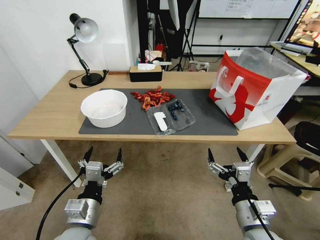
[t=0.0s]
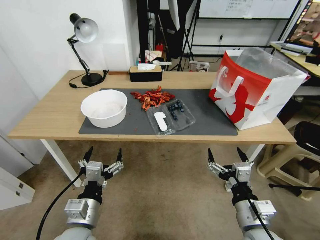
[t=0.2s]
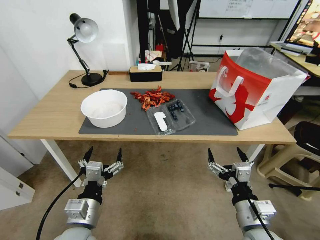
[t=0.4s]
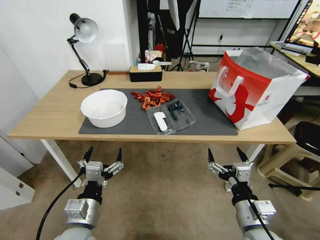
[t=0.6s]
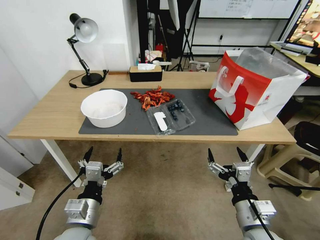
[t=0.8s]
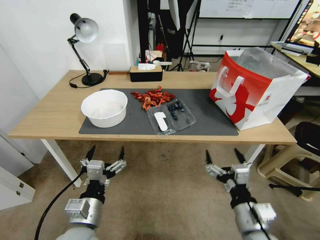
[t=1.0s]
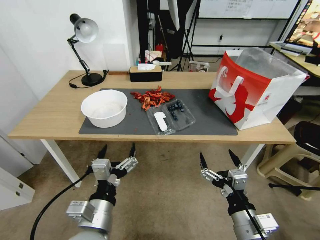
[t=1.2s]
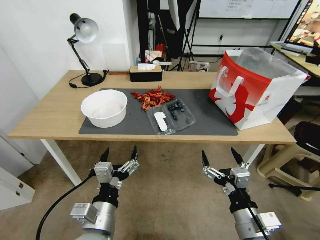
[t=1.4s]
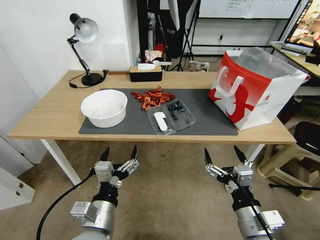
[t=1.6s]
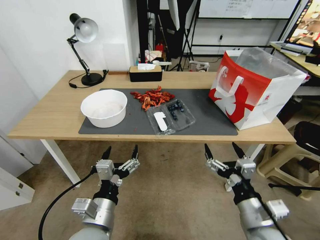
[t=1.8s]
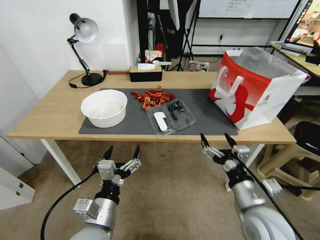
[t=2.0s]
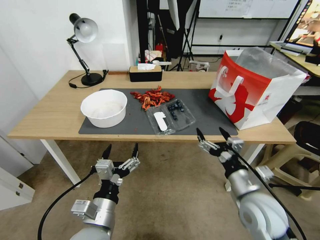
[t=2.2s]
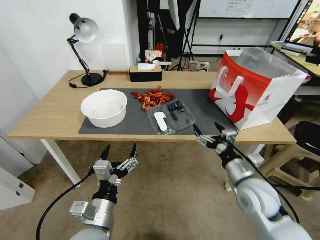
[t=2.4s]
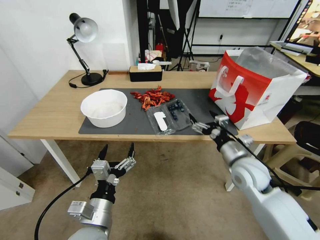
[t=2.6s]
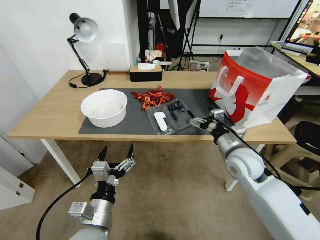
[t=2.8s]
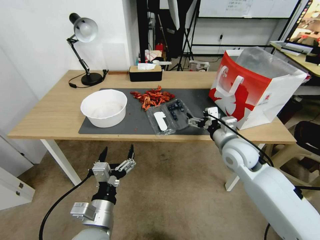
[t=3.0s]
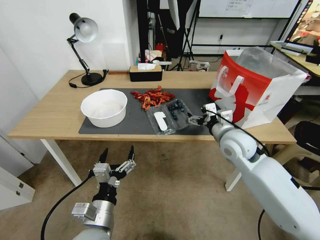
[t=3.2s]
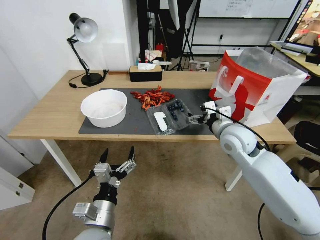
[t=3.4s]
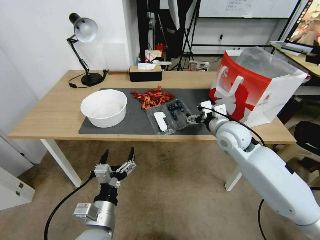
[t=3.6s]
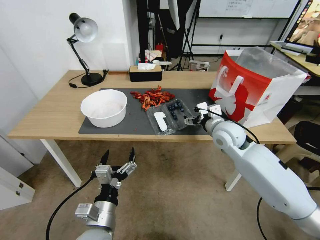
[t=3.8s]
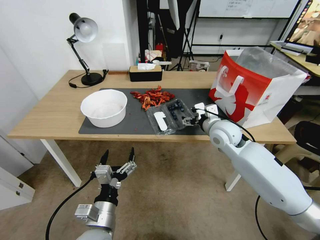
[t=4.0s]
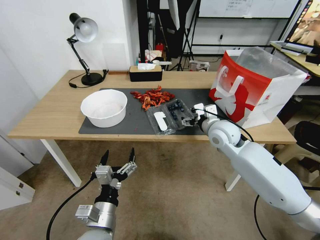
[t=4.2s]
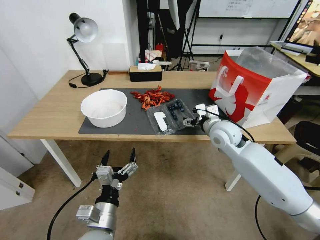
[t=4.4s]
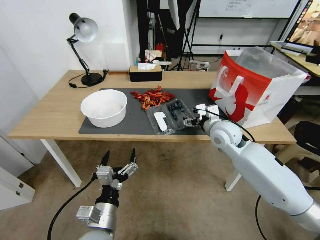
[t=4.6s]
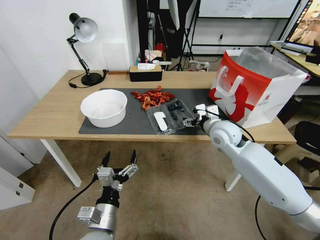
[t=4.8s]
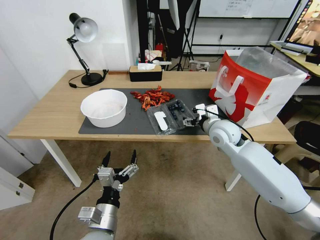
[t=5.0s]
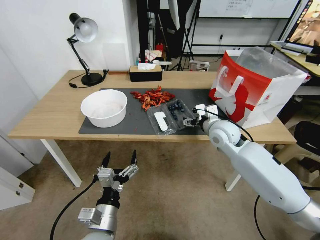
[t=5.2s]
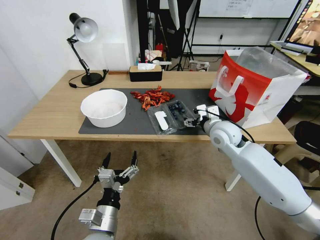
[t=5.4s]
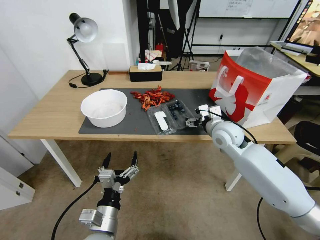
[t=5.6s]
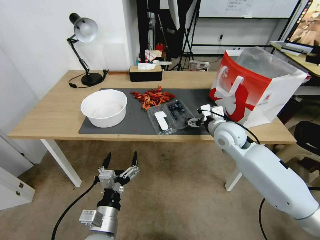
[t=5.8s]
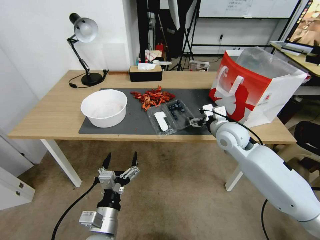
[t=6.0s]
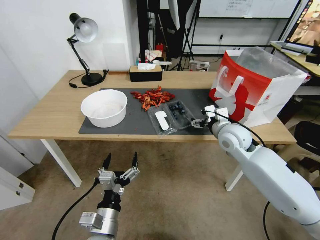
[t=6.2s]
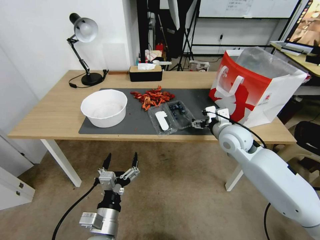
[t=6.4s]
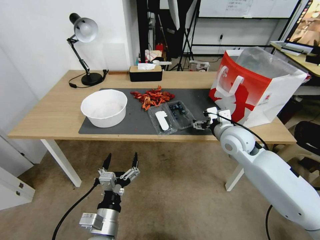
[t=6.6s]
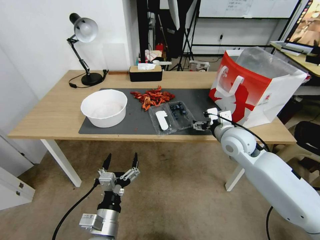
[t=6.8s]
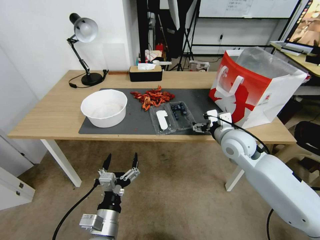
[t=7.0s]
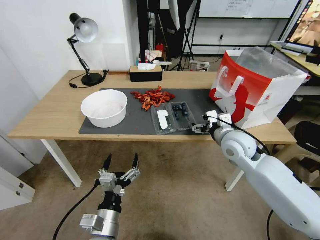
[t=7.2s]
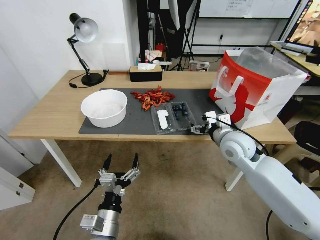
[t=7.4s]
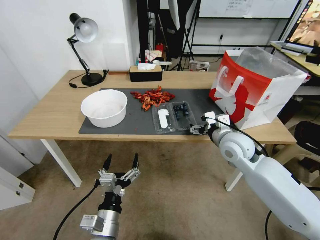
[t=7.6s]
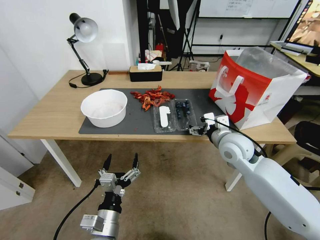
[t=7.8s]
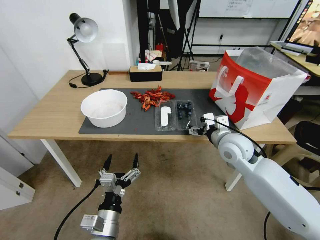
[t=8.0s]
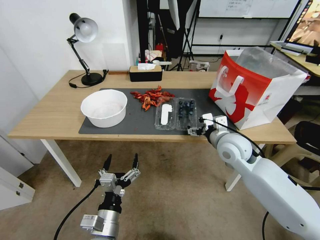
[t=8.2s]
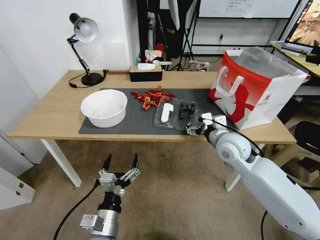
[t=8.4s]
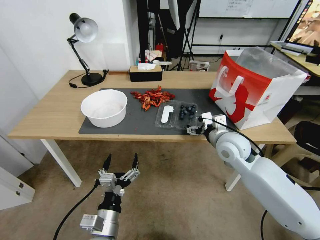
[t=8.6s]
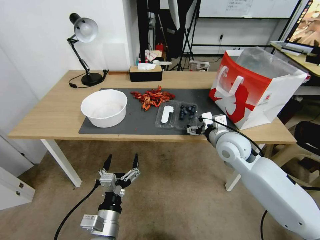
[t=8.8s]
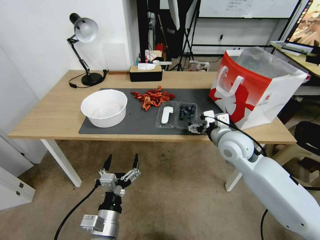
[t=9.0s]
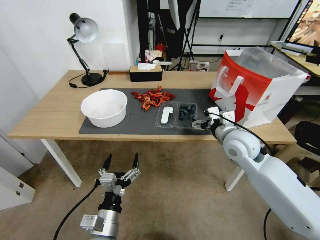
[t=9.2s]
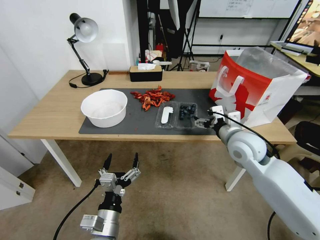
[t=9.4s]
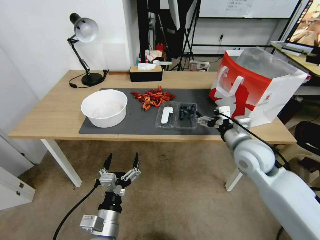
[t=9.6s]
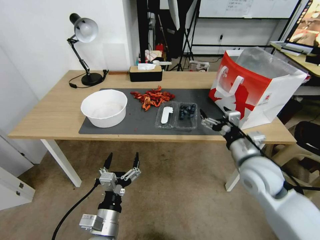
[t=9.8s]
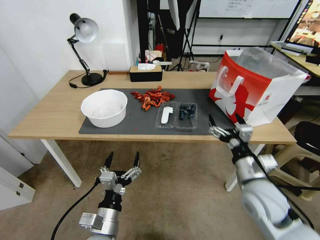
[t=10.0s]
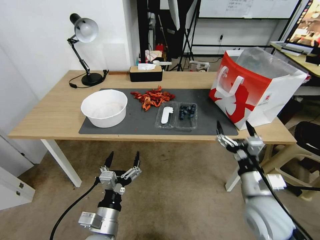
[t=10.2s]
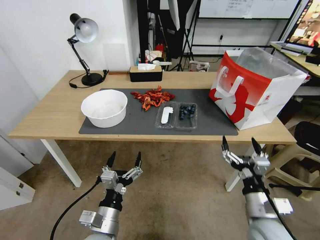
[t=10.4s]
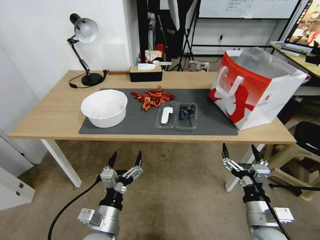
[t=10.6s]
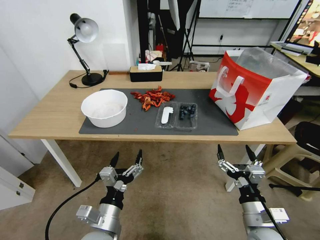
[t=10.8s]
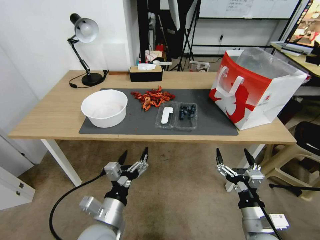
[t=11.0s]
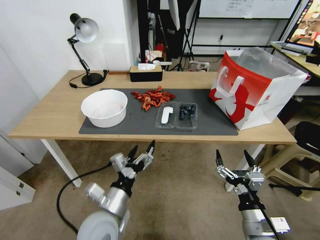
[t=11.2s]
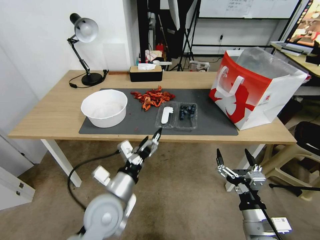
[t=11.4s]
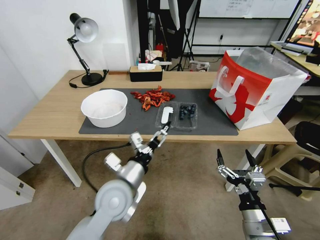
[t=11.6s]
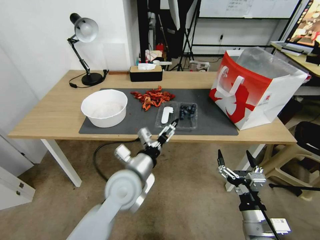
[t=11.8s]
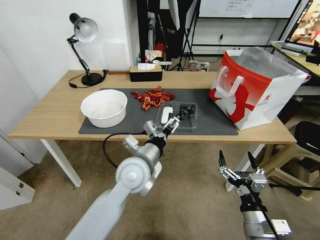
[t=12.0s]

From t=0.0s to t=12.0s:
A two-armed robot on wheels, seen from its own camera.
Task of the whole recording: Close the takeout container lid, then place the container into the takeout bag.
From t=1.6s to t=3.0s: The right gripper shifts roughly 25 cm forward.
From t=3.0s to t=4.4s: The right gripper is displaced forward by about 5 cm.
From t=4.4s to t=7.6s: The grippers make only small movements.
From t=7.6s to t=9.0s: Both grippers stay about where they are.
From t=9.0s to t=10.4s: The right gripper shifts about 25 cm backward and downward.
From t=10.4s to t=12.0s: The right gripper changes place by about 5 cm. The left gripper heads forward, upward and to the right, covering approximately 20 cm.

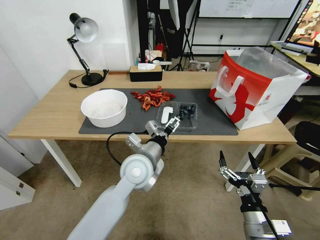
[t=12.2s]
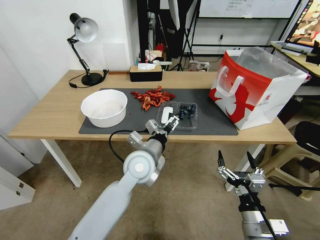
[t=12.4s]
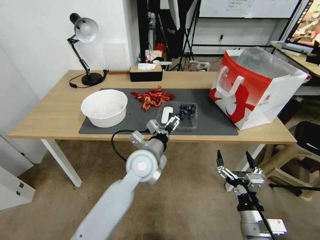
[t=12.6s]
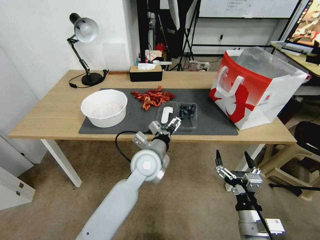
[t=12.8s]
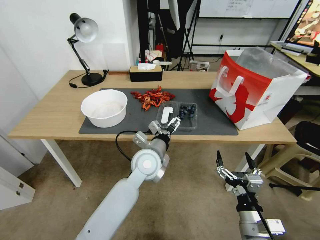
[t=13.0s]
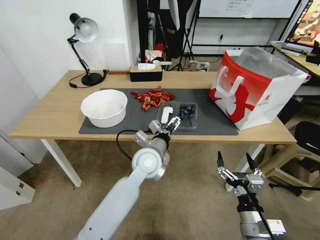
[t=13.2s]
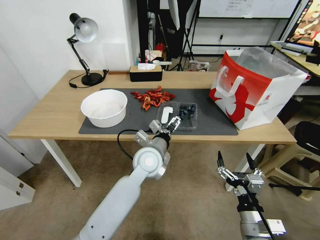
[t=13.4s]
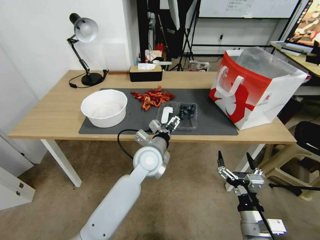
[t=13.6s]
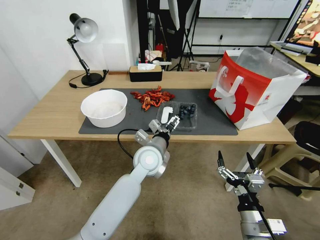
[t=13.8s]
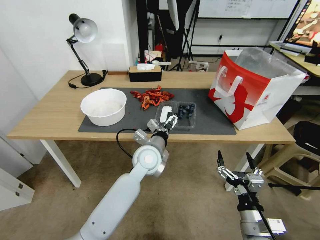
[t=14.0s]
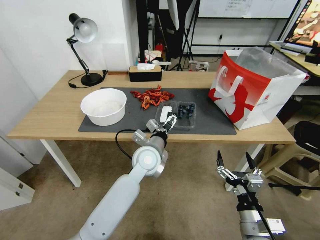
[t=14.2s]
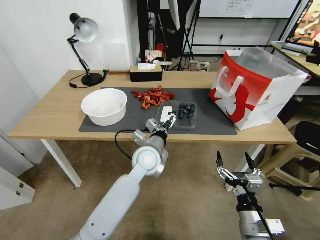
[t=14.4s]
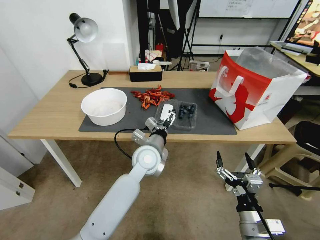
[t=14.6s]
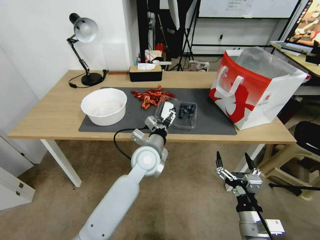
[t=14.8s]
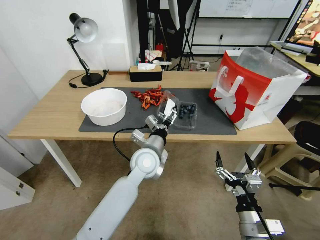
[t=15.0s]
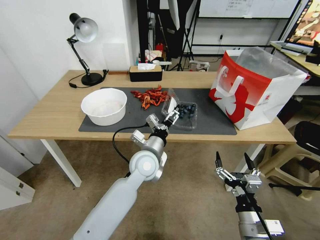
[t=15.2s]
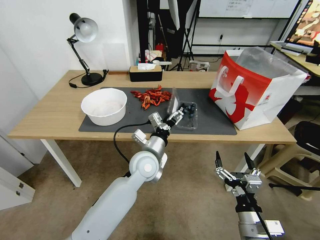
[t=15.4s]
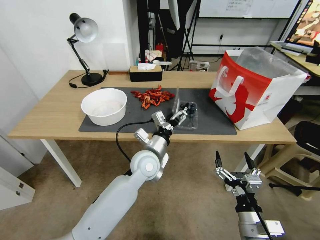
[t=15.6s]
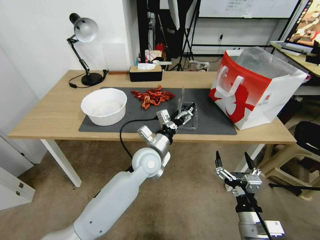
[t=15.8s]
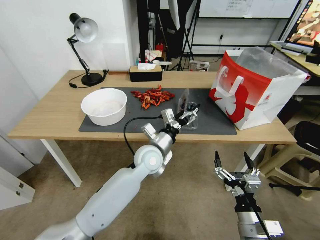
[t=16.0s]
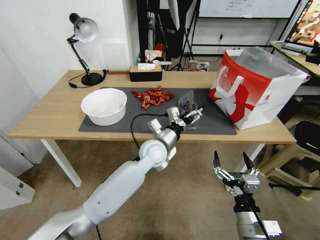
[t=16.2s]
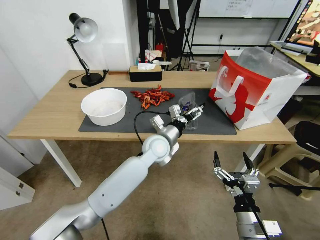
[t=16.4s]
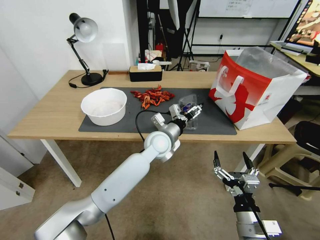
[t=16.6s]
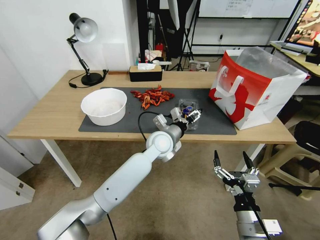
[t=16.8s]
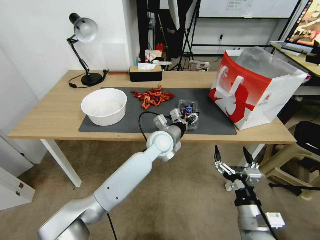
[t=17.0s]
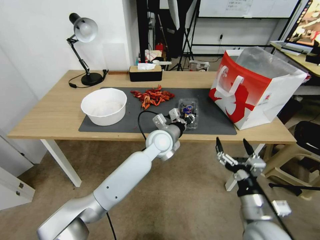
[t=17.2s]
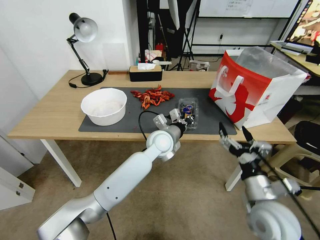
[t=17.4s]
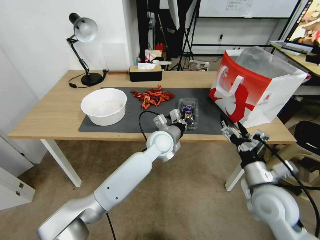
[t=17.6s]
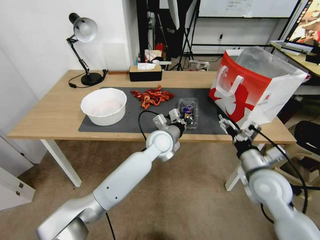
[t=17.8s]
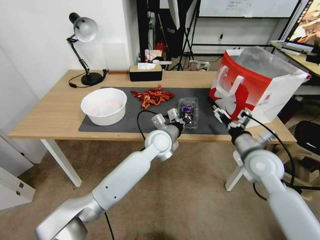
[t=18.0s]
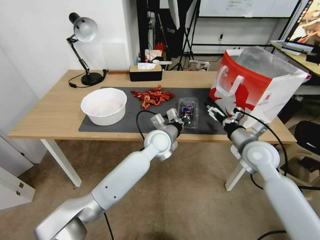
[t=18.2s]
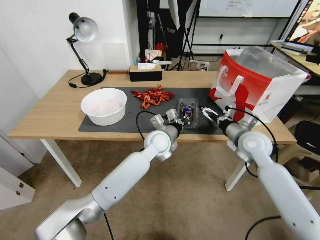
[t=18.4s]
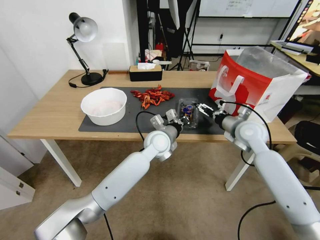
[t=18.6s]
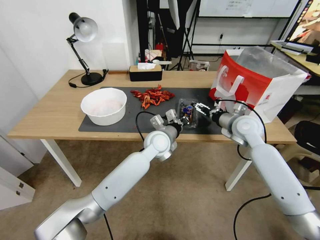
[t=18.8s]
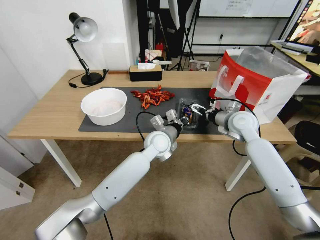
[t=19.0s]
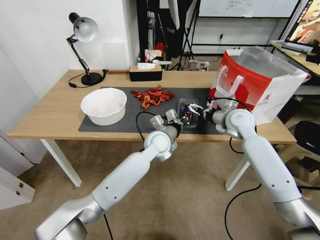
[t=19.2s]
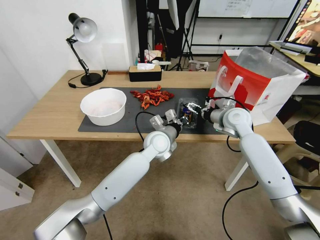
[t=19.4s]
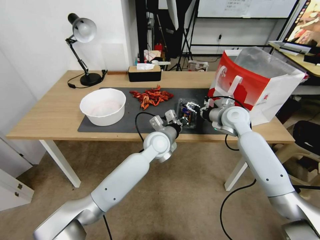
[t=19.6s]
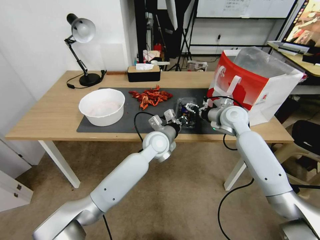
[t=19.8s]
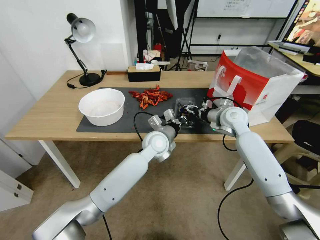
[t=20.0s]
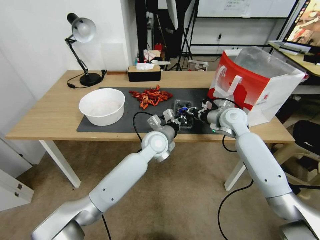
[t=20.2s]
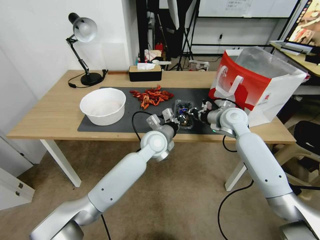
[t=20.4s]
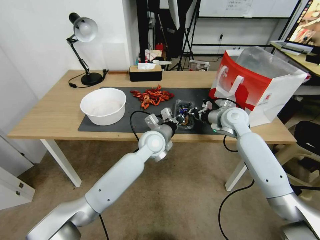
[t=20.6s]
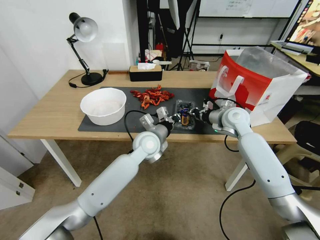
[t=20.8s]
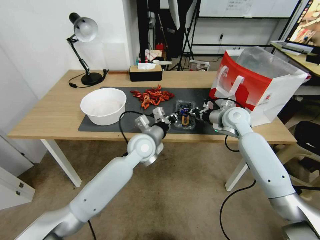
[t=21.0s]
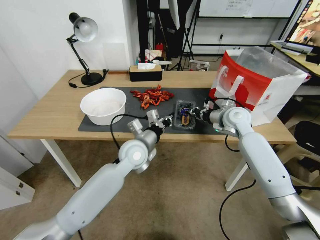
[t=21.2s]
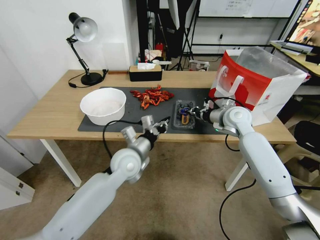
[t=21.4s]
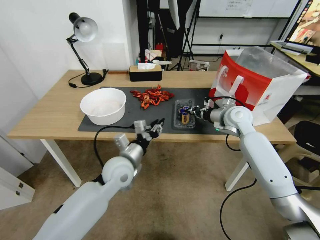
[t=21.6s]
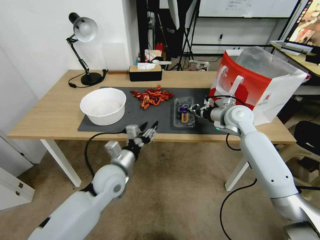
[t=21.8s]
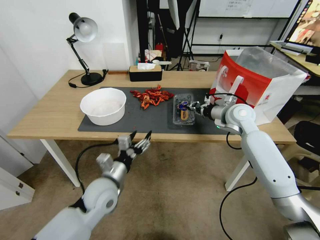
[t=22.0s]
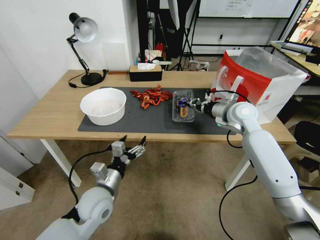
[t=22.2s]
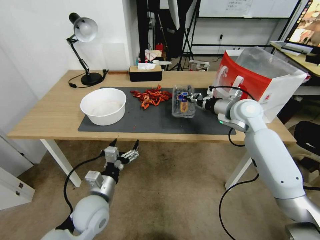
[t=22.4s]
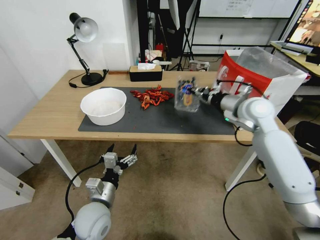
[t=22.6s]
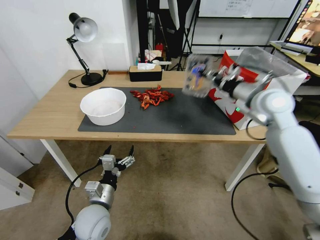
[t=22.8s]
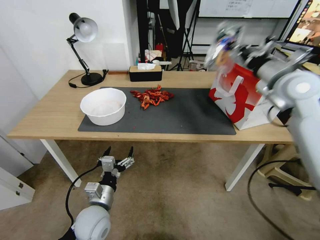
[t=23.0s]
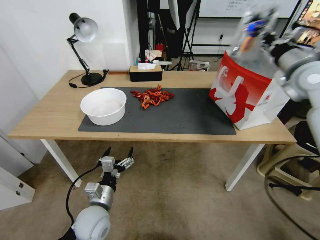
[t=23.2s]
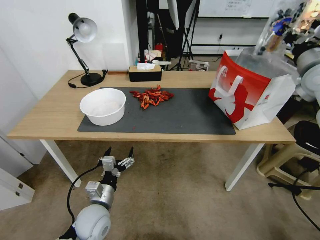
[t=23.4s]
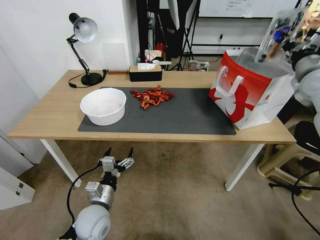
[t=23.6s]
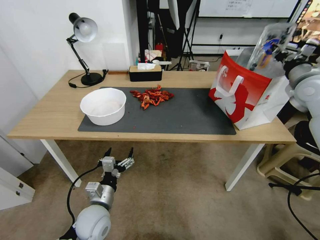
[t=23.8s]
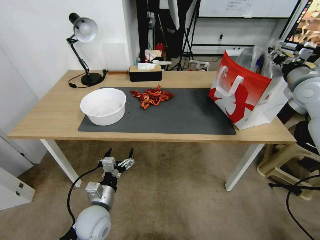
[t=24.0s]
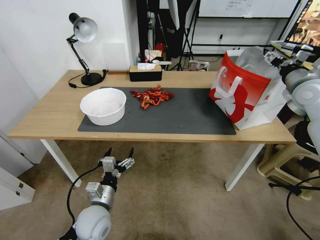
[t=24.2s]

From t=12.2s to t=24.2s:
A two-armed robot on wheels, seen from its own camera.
Task of the whole recording: Close the takeout container lid, then place the container into the takeout bag.
From t=12.2s to t=13.8s: The left gripper shifts by about 5 cm.
From t=13.8s to t=15.2s: There are only small adjustments of the grippers.
From t=15.2s to t=16.6s: The left gripper shifts approximately 5 cm forward.
From t=16.6s to t=18.2s: The right gripper shifts approximately 25 cm forward and upward; the left gripper closes.
From t=18.2s to t=19.8s: The right gripper moves forward, some 15 cm.
From t=19.8s to t=21.2s: The left gripper travels to the left by about 5 cm, while the right gripper closes its fingers.
From t=21.2s to t=22.6s: The right gripper goes approximately 10 cm upward. The left gripper shifts roughly 20 cm backward, to the left and downward, and opens its fingers.
From t=22.6s to t=24.2s: The right gripper is displaced to the right and upward by about 15 cm, and opens up.
